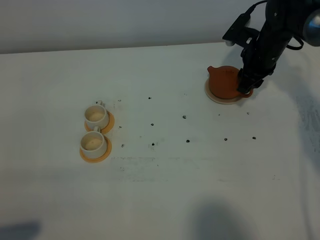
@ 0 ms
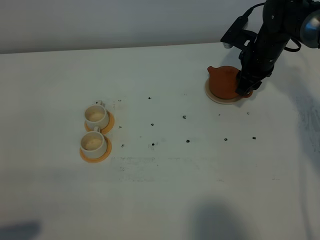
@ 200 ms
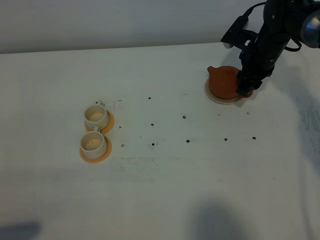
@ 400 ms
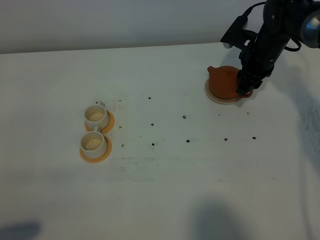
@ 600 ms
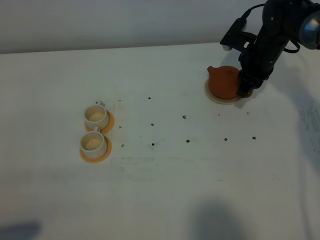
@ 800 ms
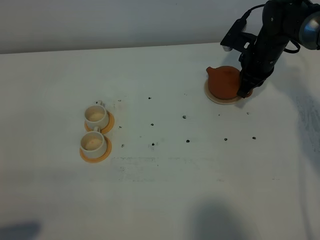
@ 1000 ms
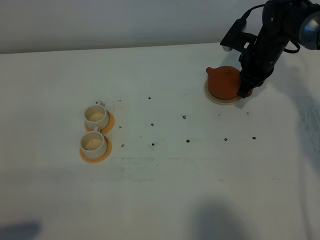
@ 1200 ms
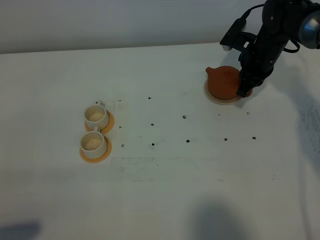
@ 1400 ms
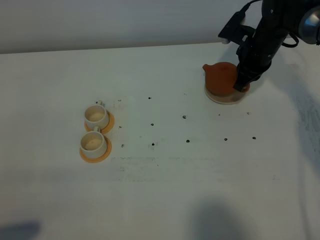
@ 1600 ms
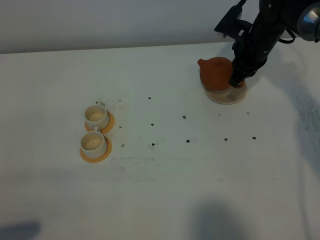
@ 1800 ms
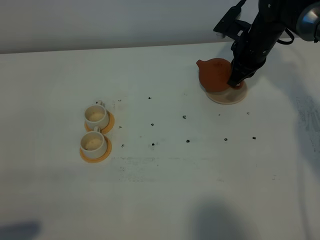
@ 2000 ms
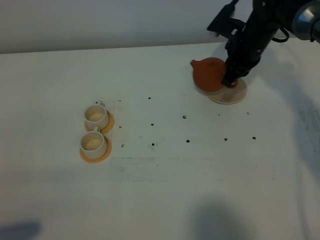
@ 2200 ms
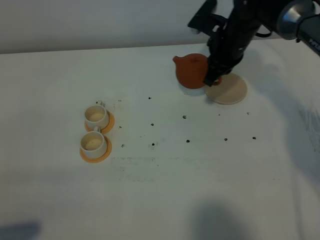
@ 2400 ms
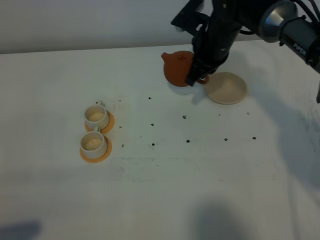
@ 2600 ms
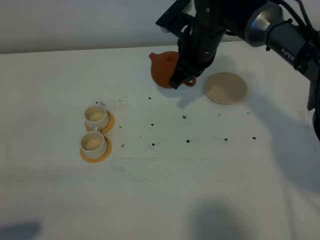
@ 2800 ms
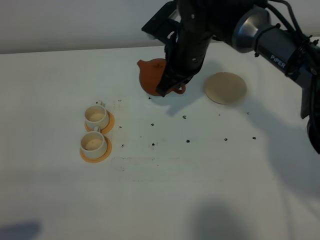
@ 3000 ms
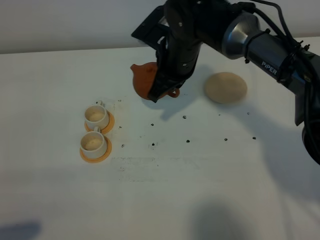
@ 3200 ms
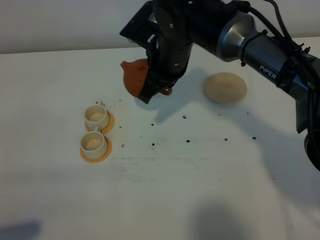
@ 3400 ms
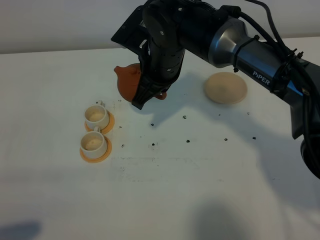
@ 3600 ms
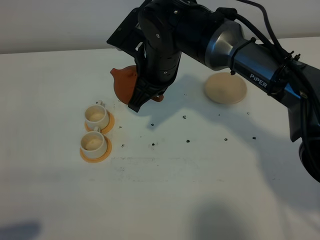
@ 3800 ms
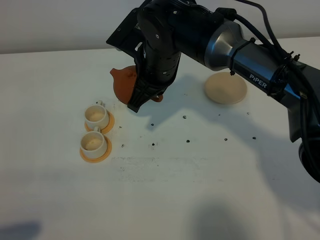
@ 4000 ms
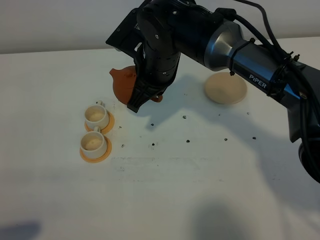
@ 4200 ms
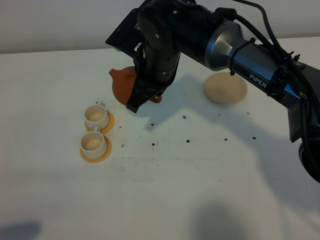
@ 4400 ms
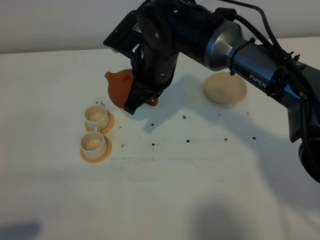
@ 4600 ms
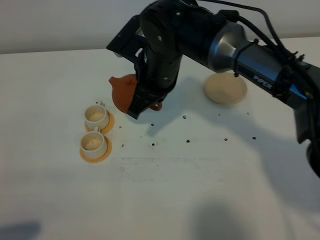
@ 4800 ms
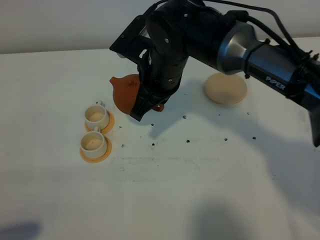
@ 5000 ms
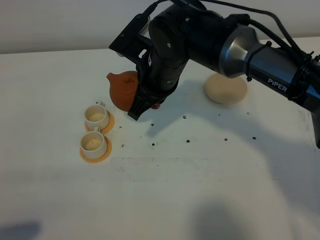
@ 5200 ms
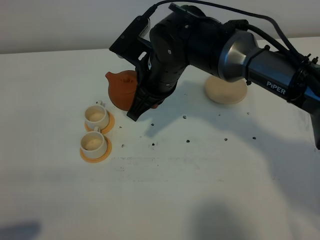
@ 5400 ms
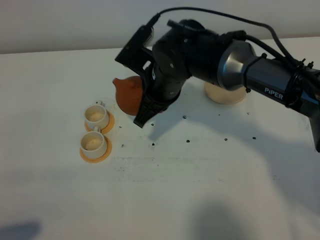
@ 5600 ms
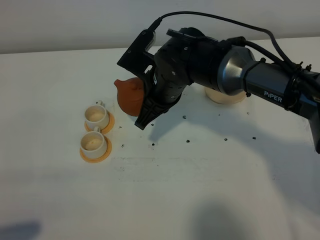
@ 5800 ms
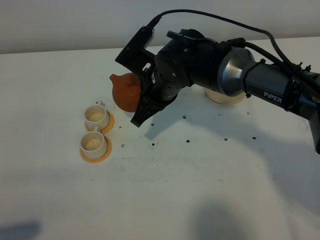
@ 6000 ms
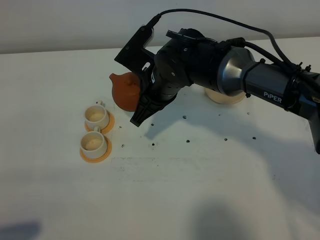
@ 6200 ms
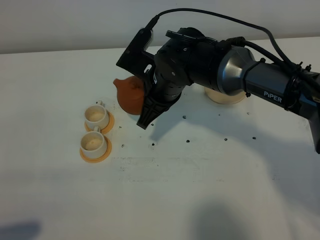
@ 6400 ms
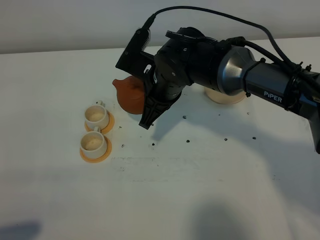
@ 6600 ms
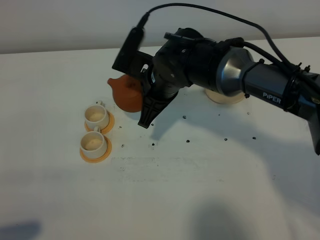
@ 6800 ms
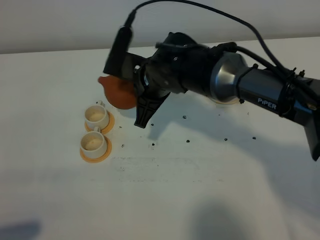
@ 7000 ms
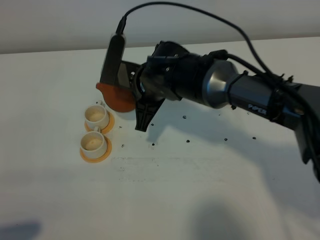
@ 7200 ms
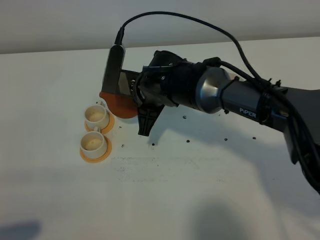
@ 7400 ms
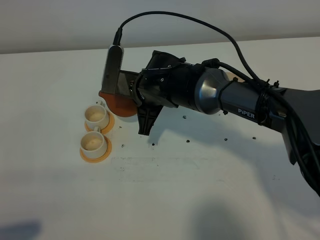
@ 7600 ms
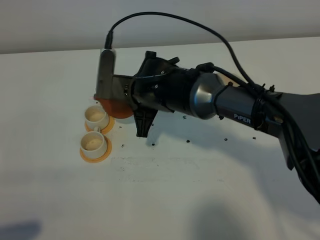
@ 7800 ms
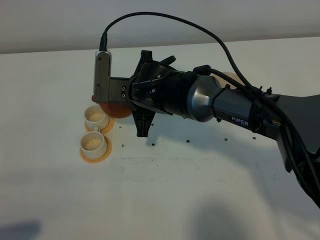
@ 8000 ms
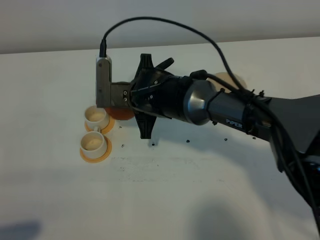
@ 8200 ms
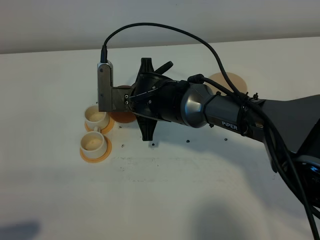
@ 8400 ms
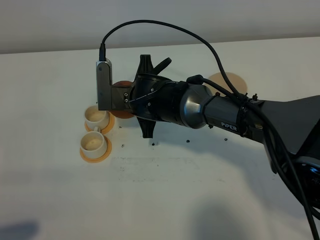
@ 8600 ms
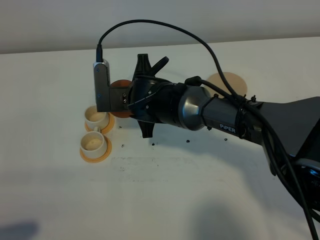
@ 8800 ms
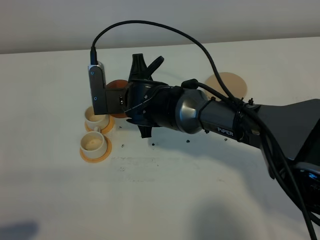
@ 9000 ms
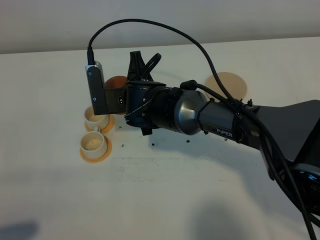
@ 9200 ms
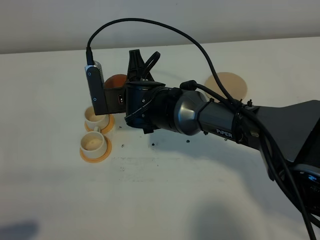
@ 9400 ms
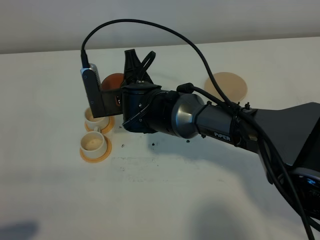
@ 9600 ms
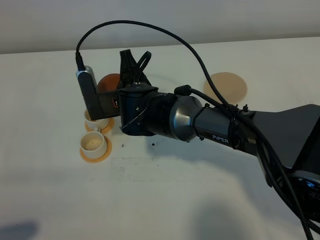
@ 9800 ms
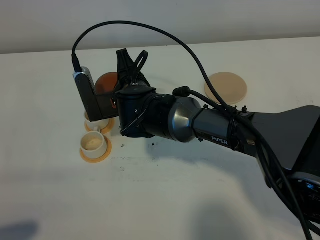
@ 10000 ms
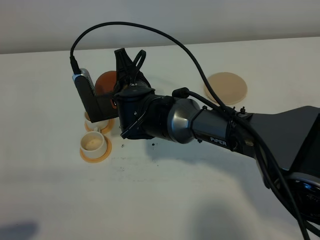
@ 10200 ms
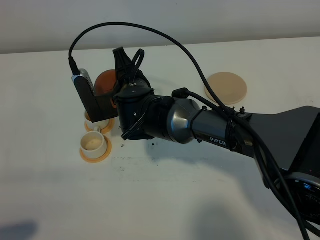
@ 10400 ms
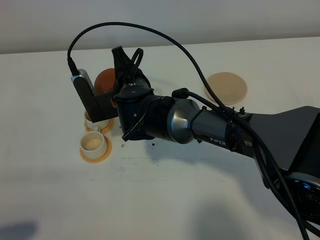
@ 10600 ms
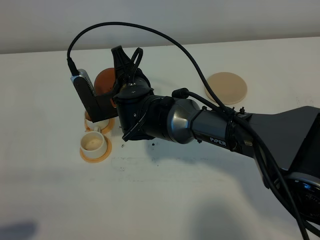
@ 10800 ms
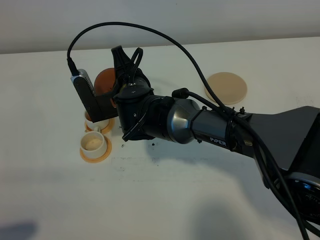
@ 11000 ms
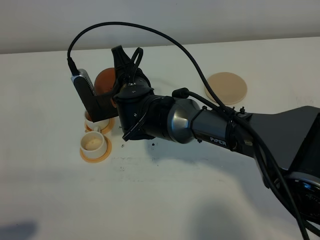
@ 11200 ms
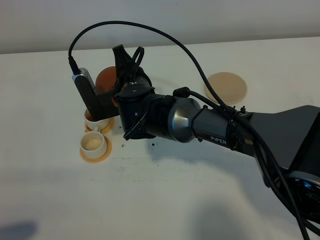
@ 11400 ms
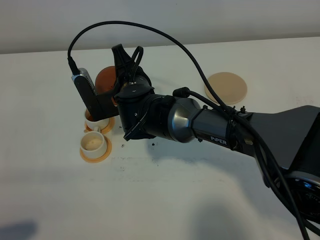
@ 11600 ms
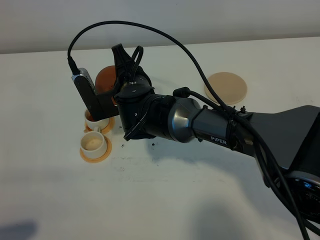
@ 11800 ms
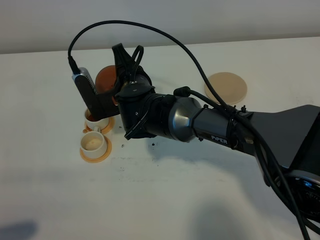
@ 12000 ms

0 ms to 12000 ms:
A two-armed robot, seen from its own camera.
Task of the whole recording: grasp the brown teapot and pour the tea into the two white teacups one by one, put the brown teapot back in its original place.
0 ms to 1600 ms: The right gripper closes its fingers.
1600 ms to 3000 ms: The right gripper moves to the left, some 15 cm.
3000 ms to 4400 ms: The right gripper shifts approximately 5 cm to the left.
4400 ms to 6000 ms: There are only small adjustments of the grippers.
9000 ms to 10400 ms: There are only small adjustments of the grippers.
10400 ms to 12000 ms: The two grippers keep their place.

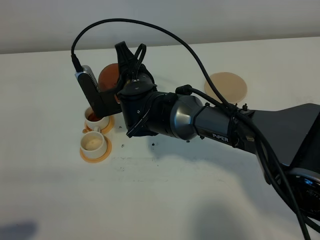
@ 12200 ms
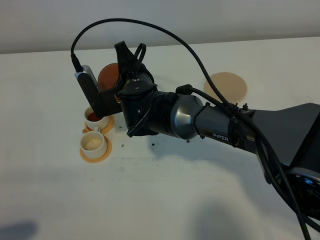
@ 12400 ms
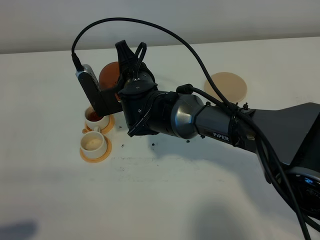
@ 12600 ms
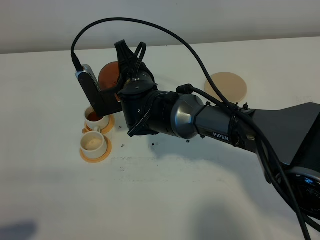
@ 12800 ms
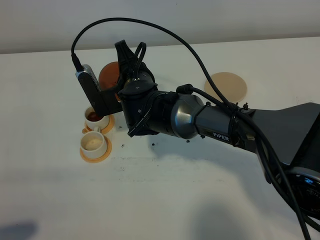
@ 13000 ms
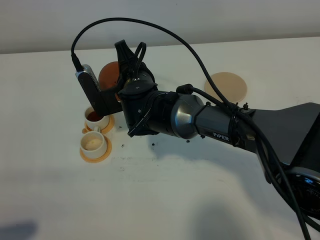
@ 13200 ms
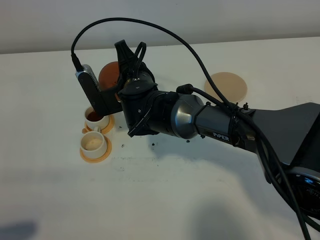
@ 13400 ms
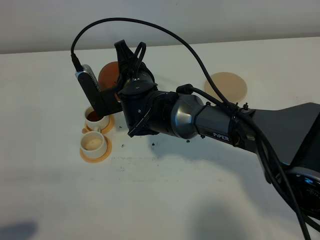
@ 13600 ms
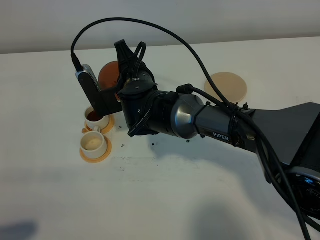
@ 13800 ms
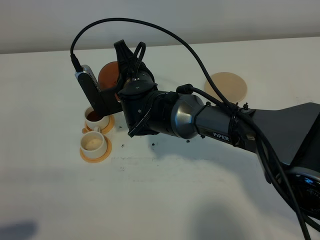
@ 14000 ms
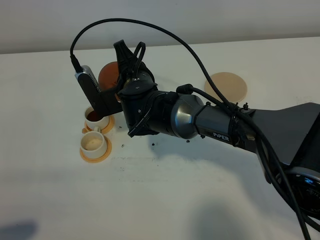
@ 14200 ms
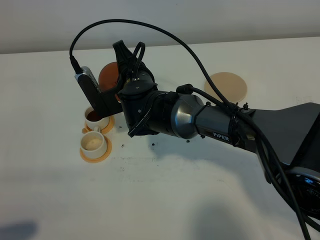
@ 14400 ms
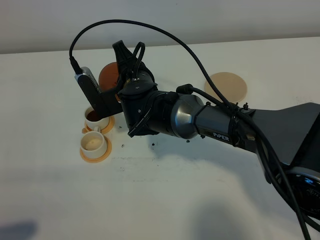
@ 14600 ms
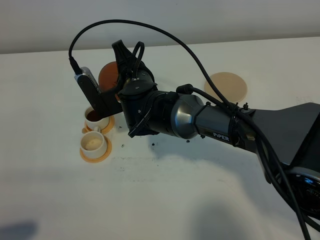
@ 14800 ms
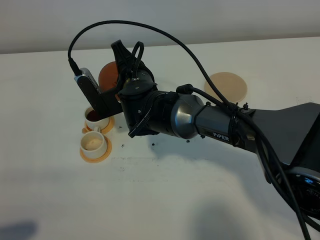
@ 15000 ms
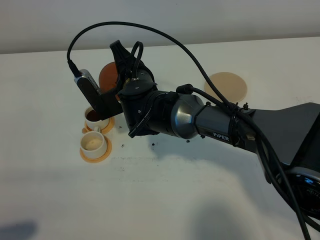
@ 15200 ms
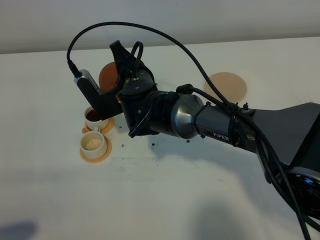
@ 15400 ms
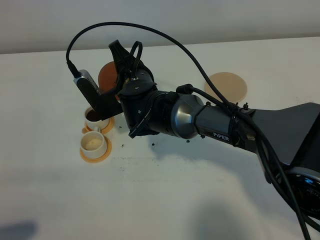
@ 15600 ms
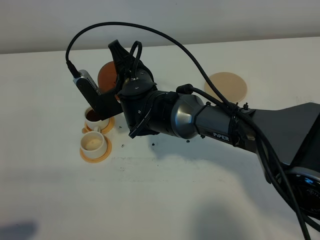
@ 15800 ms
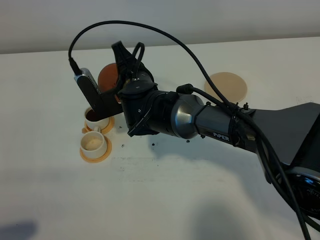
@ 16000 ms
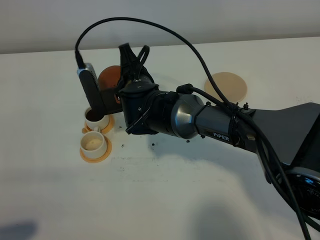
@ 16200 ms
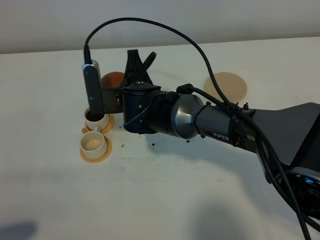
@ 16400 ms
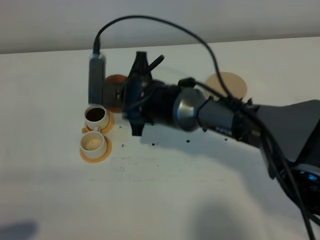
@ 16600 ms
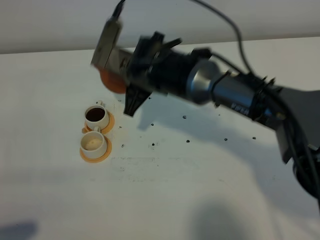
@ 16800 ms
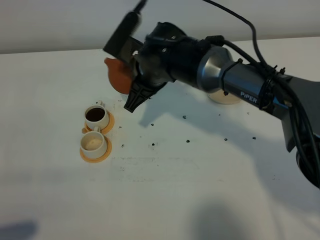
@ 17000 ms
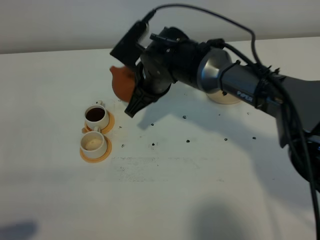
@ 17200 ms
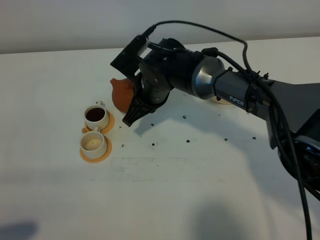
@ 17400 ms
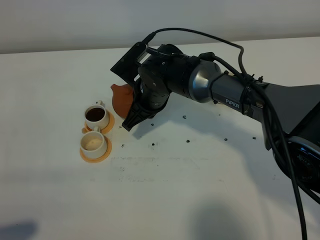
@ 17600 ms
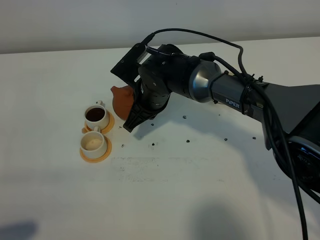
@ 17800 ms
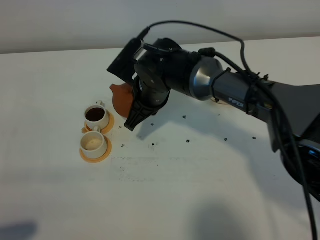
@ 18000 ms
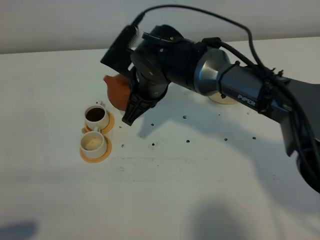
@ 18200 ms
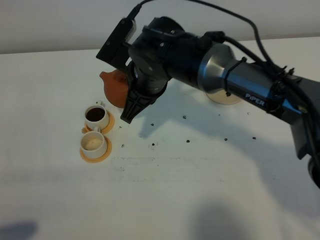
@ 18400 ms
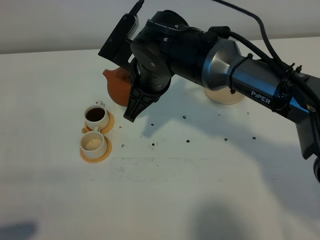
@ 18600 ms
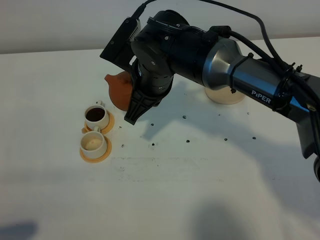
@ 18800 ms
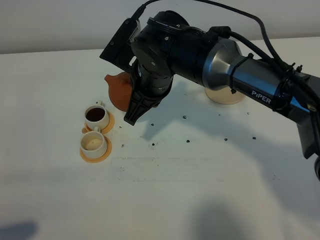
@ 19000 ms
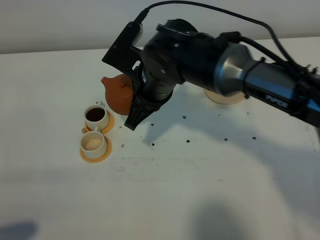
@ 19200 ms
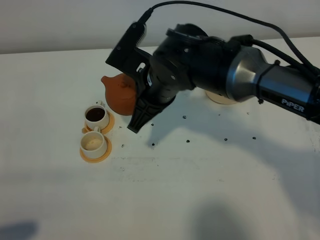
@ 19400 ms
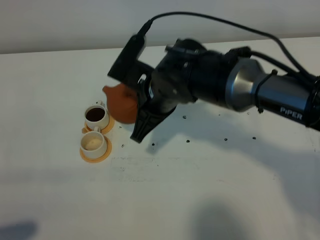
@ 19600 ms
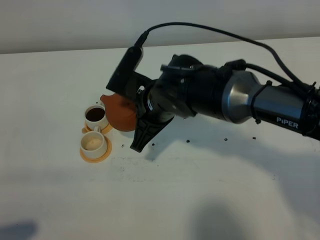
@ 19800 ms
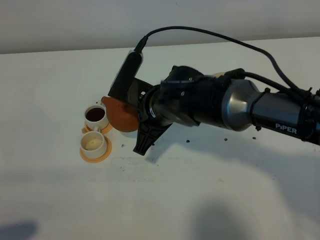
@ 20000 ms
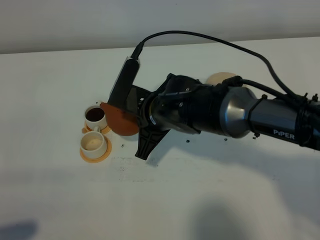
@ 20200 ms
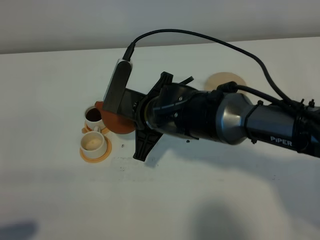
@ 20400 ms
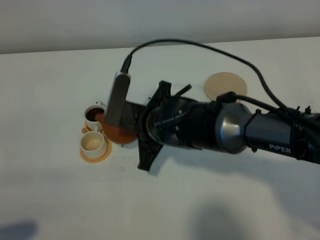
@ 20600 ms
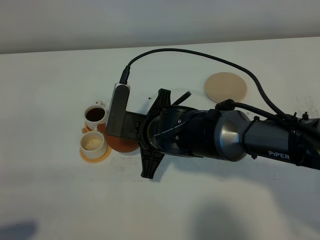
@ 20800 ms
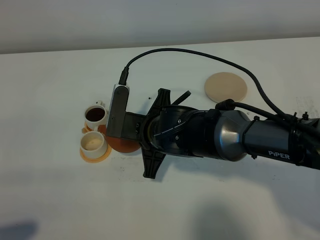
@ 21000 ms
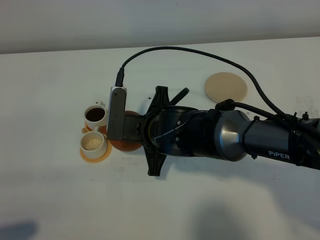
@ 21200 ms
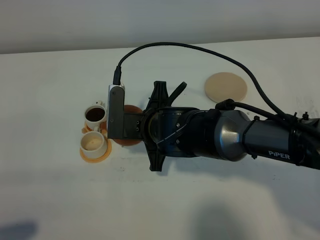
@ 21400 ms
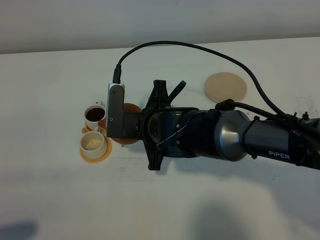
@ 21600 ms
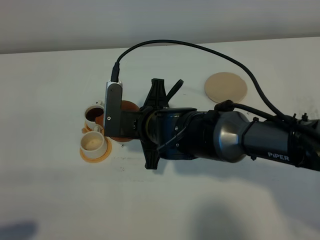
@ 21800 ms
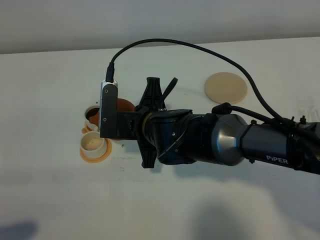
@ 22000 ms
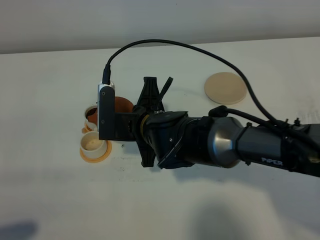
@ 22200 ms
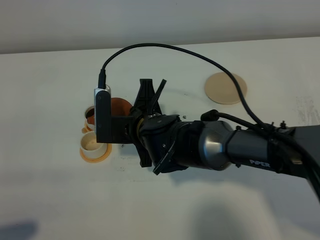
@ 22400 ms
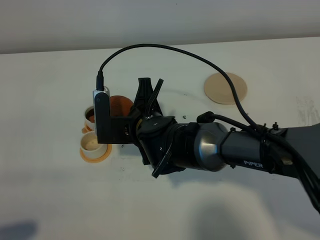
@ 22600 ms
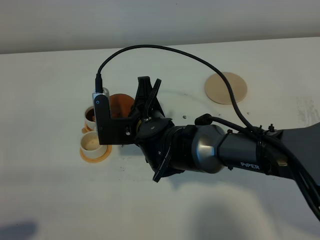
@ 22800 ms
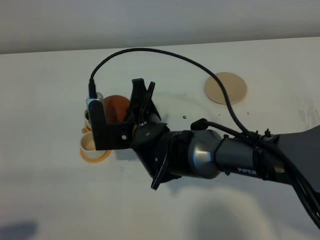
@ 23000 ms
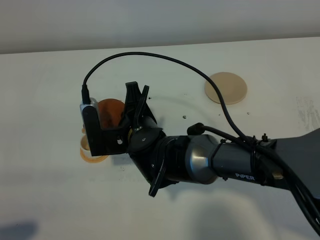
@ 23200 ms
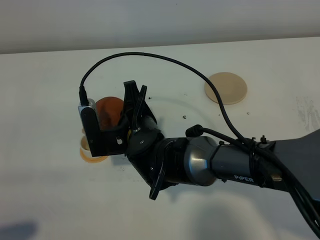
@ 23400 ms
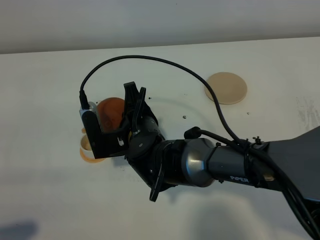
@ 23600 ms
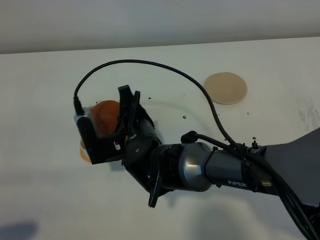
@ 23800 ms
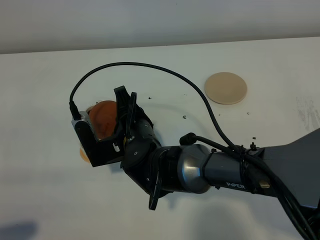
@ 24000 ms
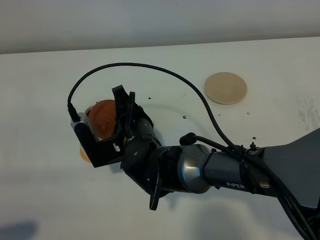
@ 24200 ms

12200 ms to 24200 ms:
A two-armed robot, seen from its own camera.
Task of the whole recording: grasp the brown teapot and pour the tea into the two white teacups one by one, put the brown teapot back in its original place.
12200 ms to 13800 ms: Neither gripper changes place.
13800 ms to 15200 ms: There are only small adjustments of the grippers.
18200 ms to 19800 ms: The right gripper is displaced backward by roughly 5 cm.
21200 ms to 22600 ms: There are only small adjustments of the grippers.
